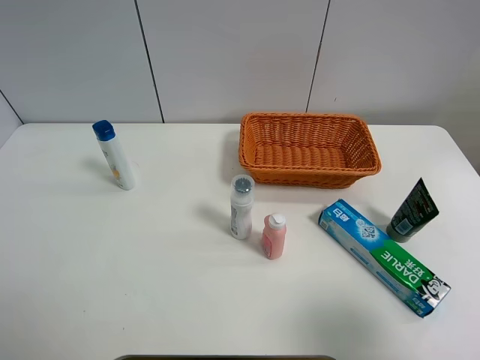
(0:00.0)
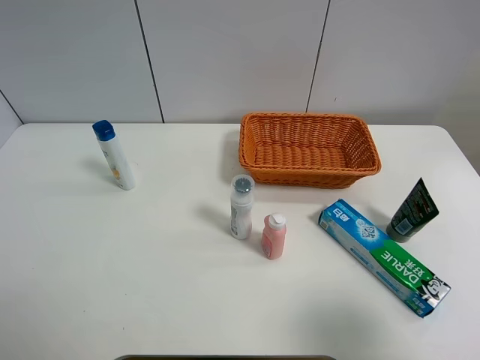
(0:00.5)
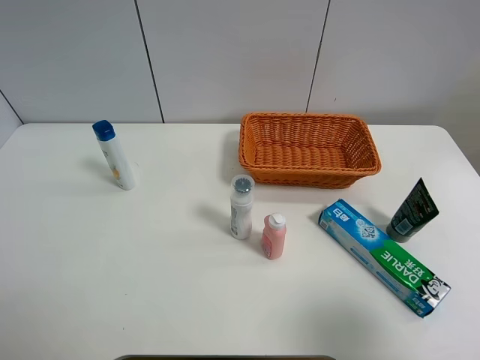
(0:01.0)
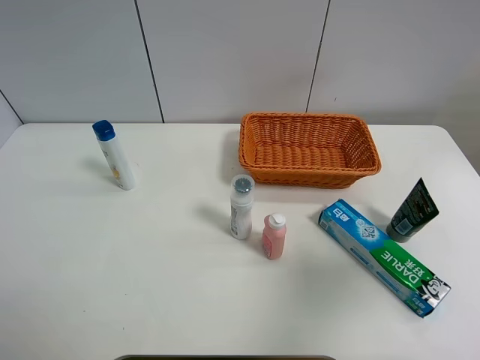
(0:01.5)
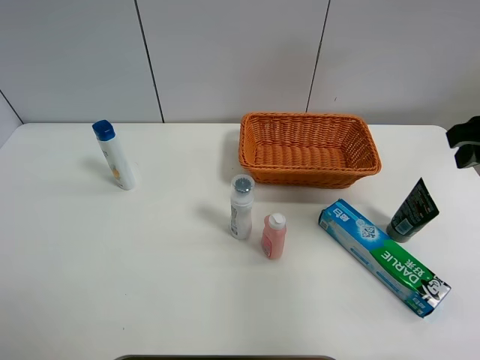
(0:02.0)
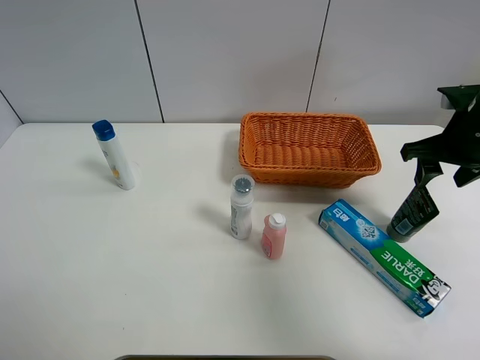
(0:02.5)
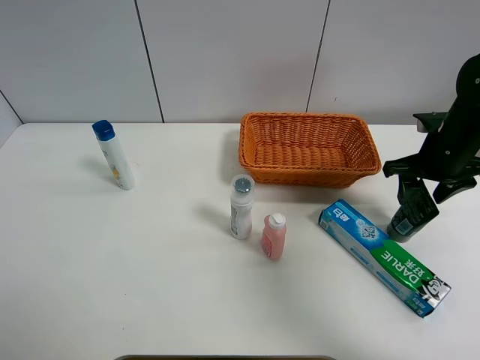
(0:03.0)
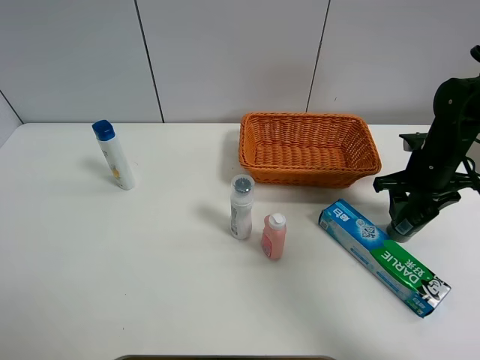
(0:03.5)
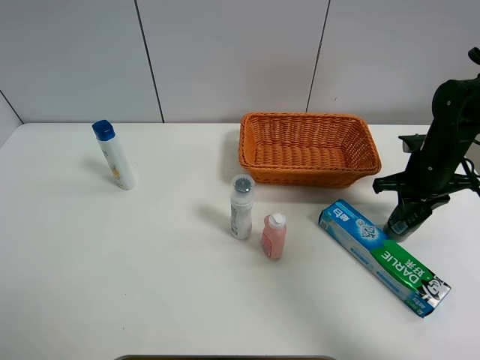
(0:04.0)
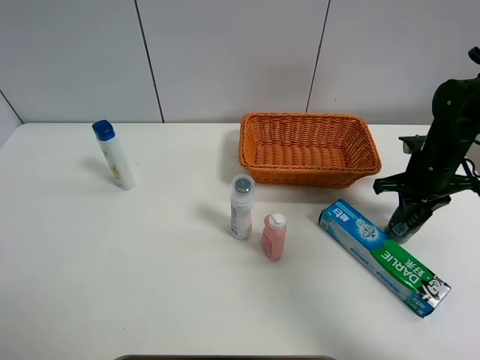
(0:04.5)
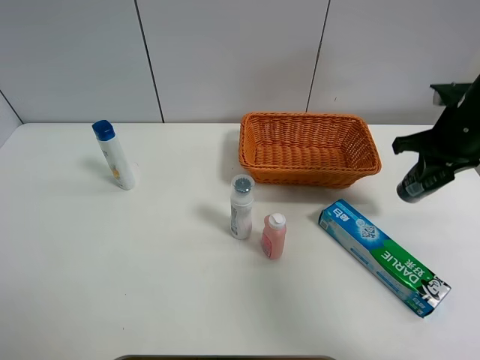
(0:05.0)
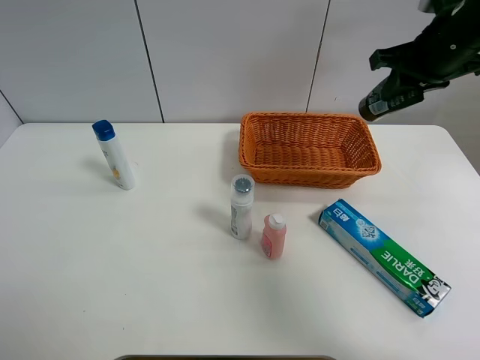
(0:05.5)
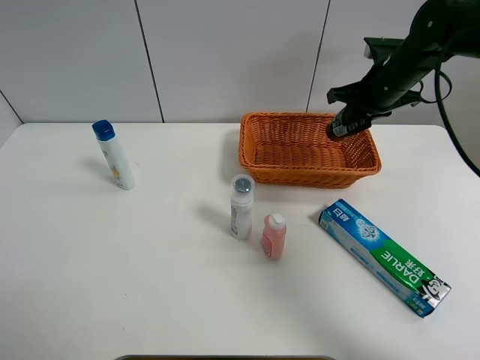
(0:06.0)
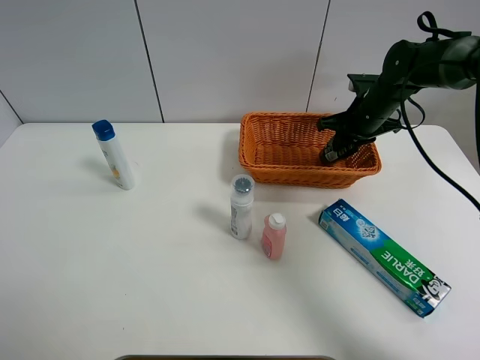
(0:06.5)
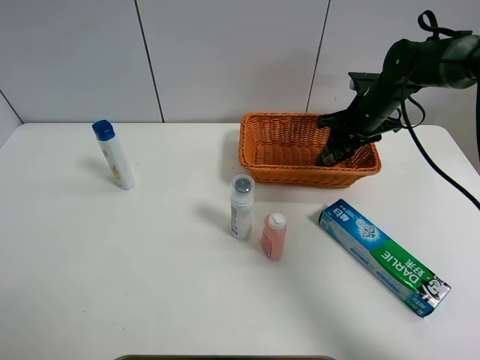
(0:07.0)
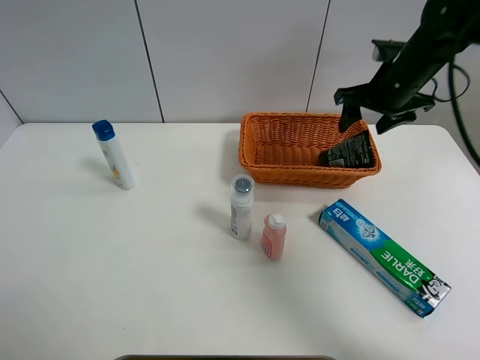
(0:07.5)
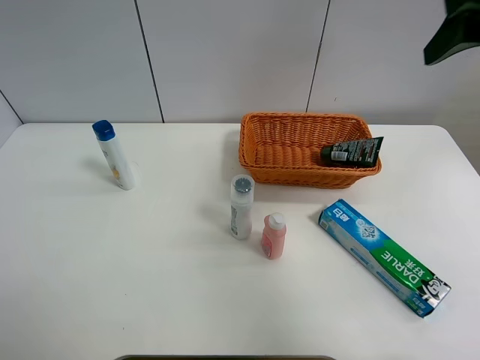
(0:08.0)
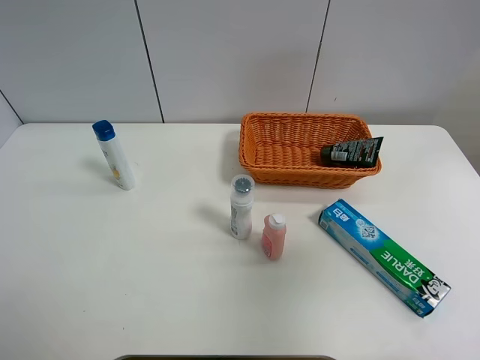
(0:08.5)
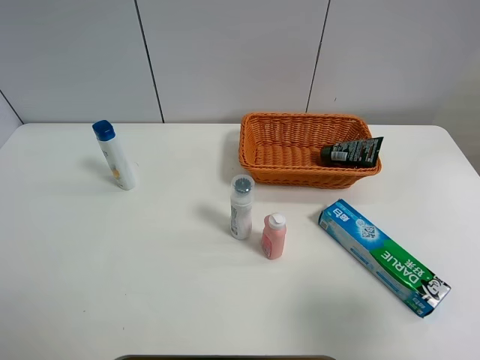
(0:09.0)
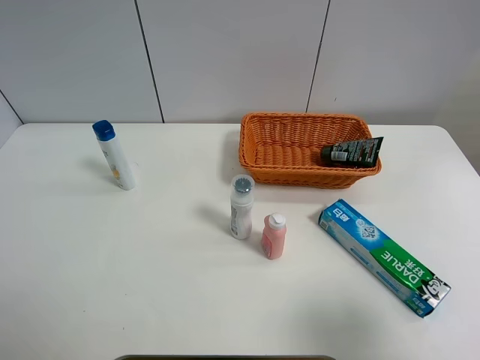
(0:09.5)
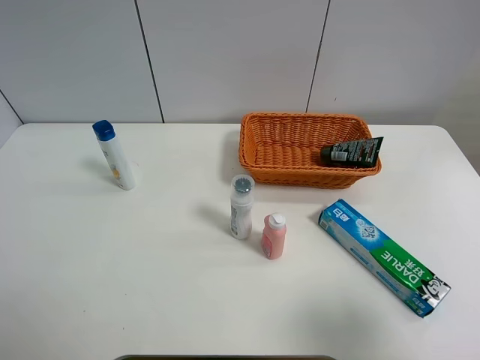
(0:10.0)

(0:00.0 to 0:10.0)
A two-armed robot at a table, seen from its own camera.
Task of the whole recording: Place the object closest to the toothpaste in the basket.
Step, 0:00.0 - 0:04.0: Grasp the soft facial cleanser with right gripper.
Step, 0:04.5 - 0:07.5: Place the soft facial cleanser in the basket with right gripper.
0:00.0 - 0:02.0: The right gripper heads forward, covering roughly 25 cm.
0:02.0 - 0:04.0: The right gripper shifts roughly 20 cm downward and forward, and closes.
0:04.0 - 0:06.0: The right gripper moves forward, upward and to the left, about 15 cm.
0:06.0 - 0:08.0: The right gripper shifts about 25 cm upward and backward, and opens its fingers.
0:08.0 - 0:10.0: The right gripper heads backward and downward, covering some 30 cm.

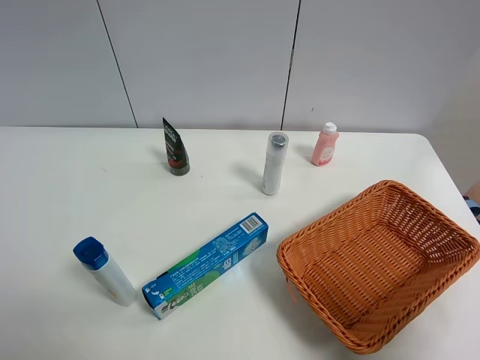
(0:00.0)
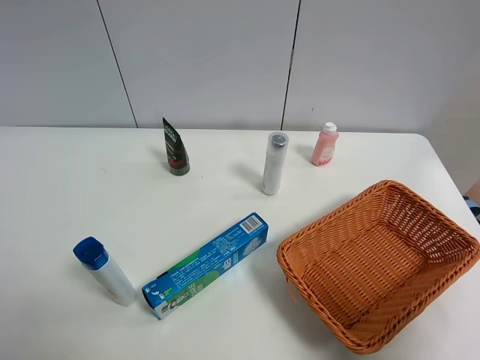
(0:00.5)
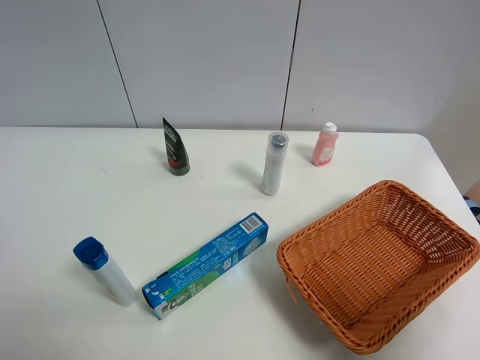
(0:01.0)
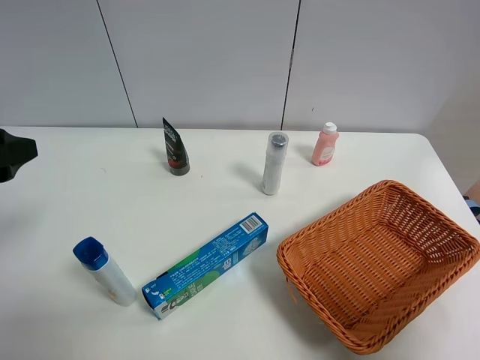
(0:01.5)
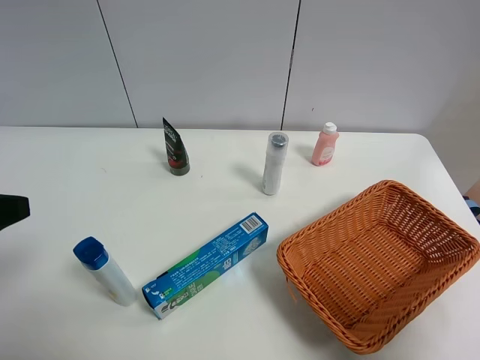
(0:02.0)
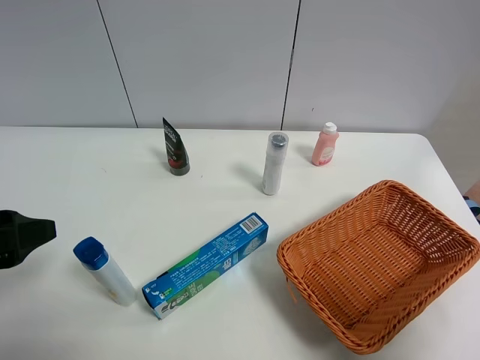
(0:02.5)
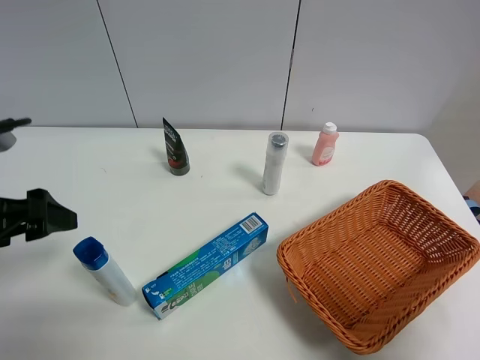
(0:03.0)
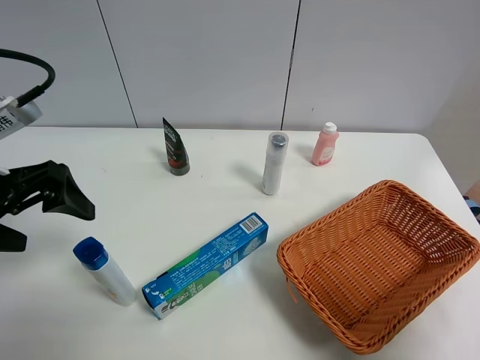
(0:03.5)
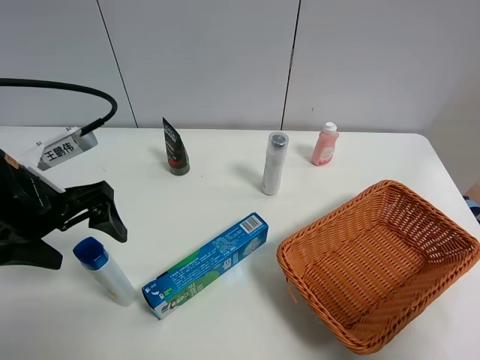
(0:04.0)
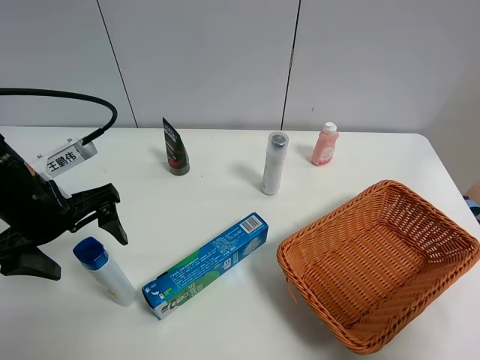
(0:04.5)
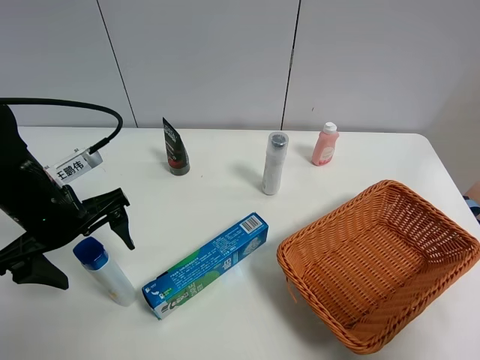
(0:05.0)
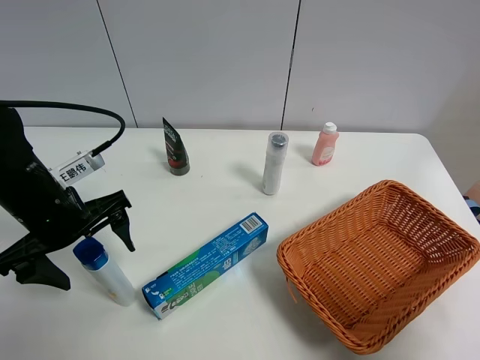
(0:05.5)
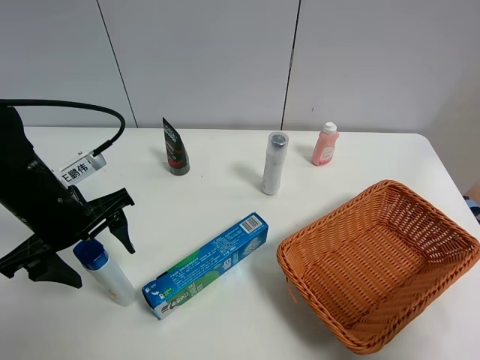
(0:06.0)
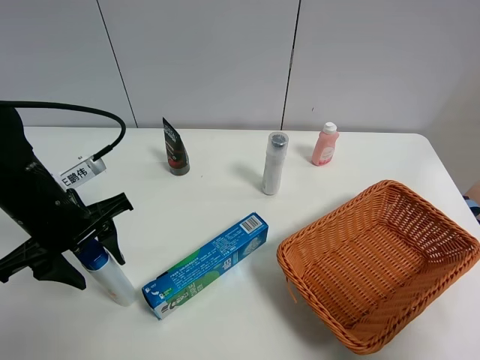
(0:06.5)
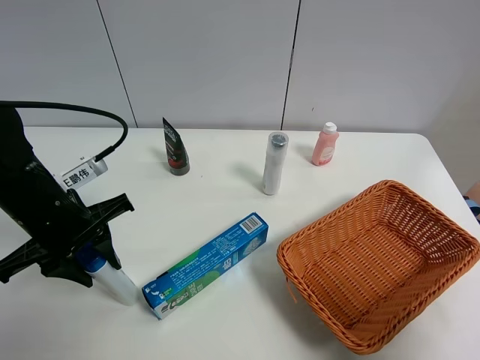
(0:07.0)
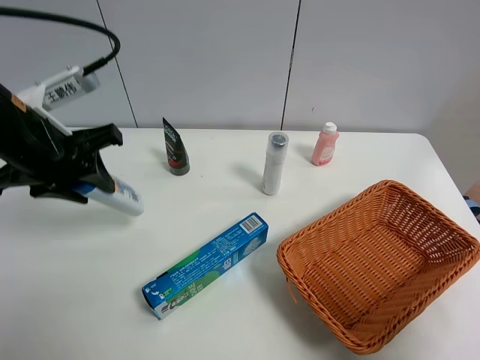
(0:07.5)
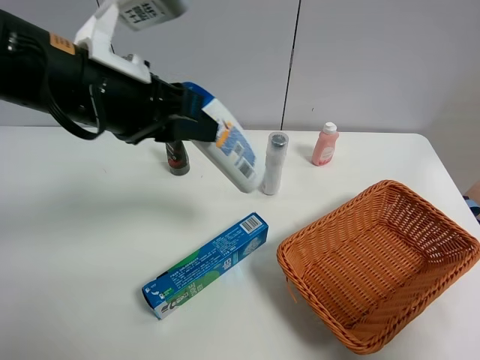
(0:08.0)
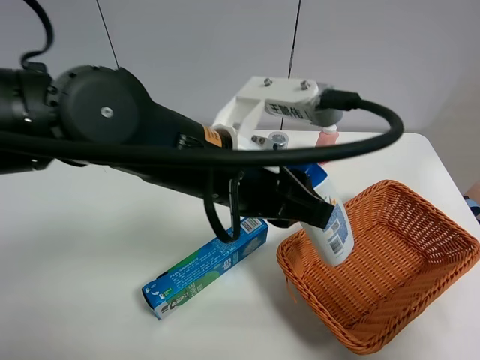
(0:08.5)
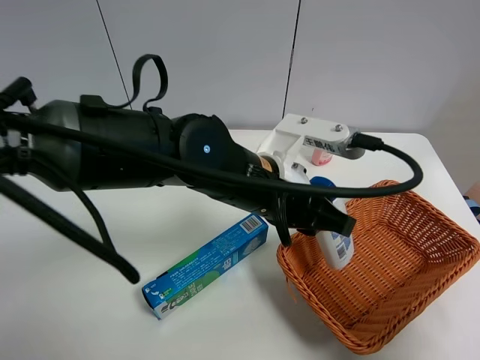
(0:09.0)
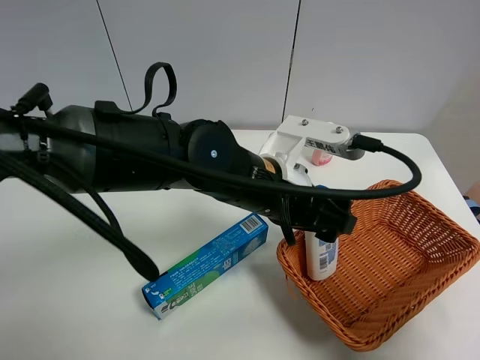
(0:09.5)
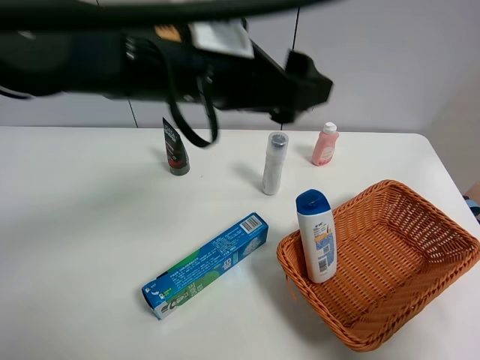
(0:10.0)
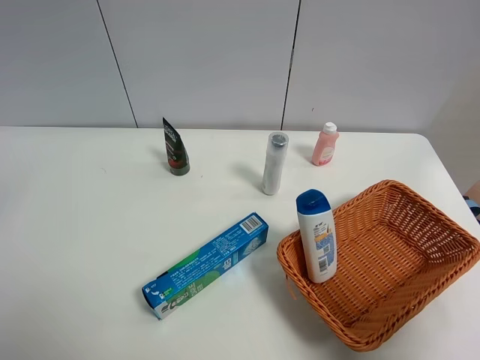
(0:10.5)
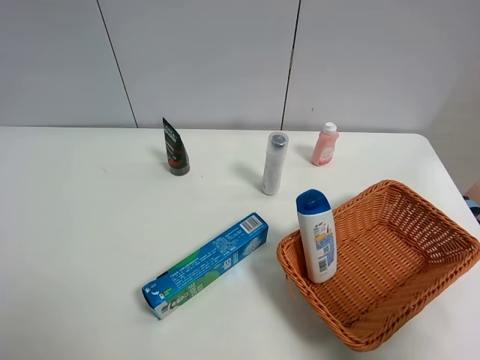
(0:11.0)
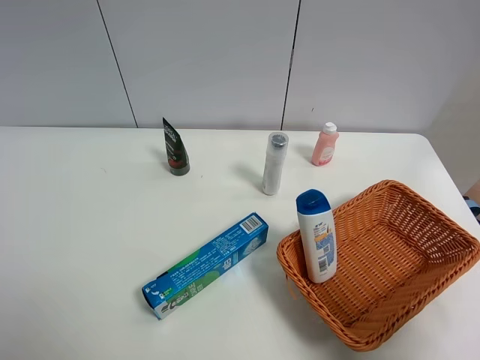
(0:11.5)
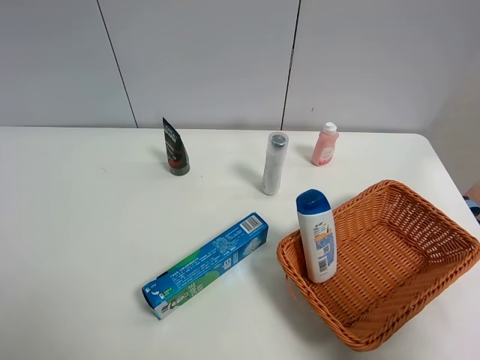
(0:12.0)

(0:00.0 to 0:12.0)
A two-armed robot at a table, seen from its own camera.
Task of the whole recording: Place the object closest to the toothpaste in the basket.
Step, 0:00.0 - 0:06.5: Grasp the shampoo with left gripper.
Step, 0:07.0 - 0:09.5: Place the shampoo in the basket with left gripper.
0:00.0 - 0:02.0: The left gripper heads forward, covering approximately 10 cm.
0:02.0 - 0:04.0: The left gripper moves forward, downward and to the right, approximately 15 cm.
0:06.0 - 0:08.0: The left gripper is displaced upward and to the right by some 20 cm, and closes its fingers.
0:08.0 - 0:10.0: The left gripper is displaced to the right by about 5 cm, reaches approximately 10 cm downward, then returns, and opens up.
0:10.0 - 0:12.0: The left gripper heads to the left and backward, covering approximately 35 cm.

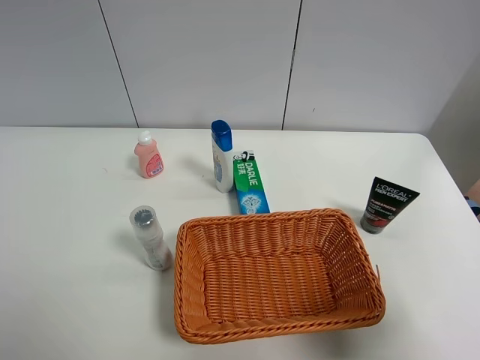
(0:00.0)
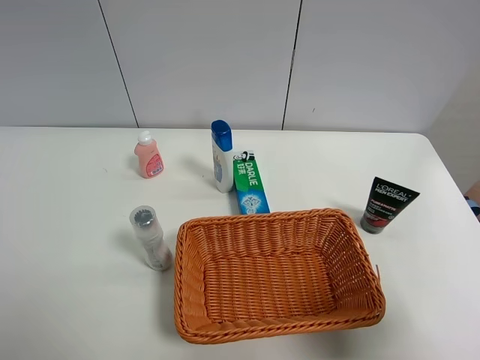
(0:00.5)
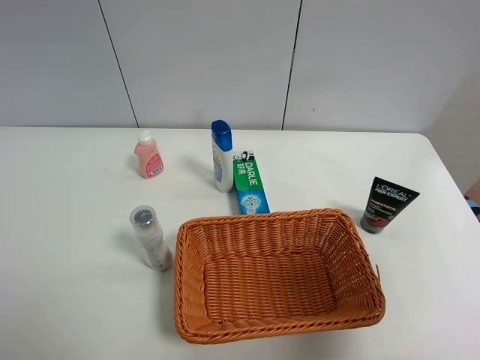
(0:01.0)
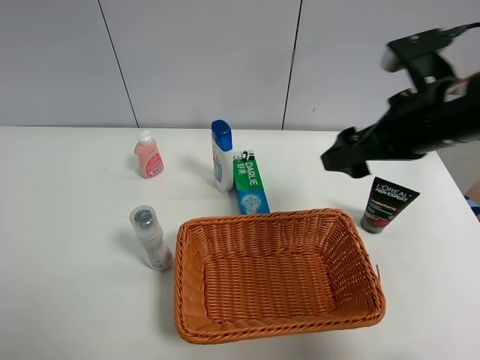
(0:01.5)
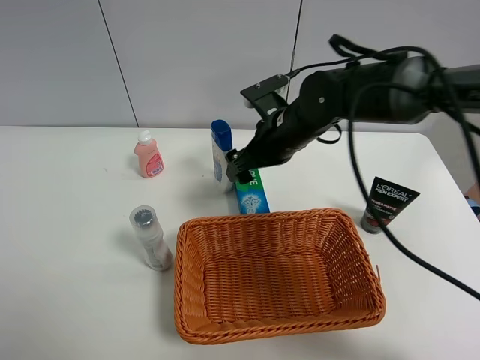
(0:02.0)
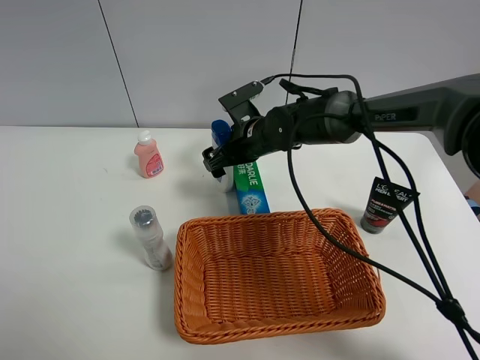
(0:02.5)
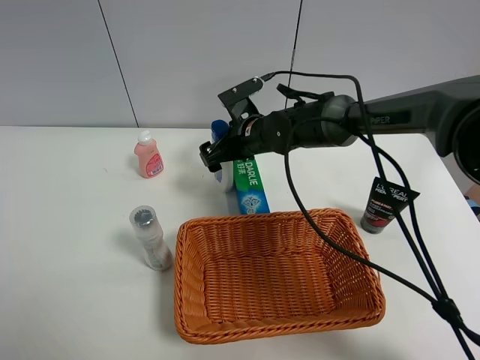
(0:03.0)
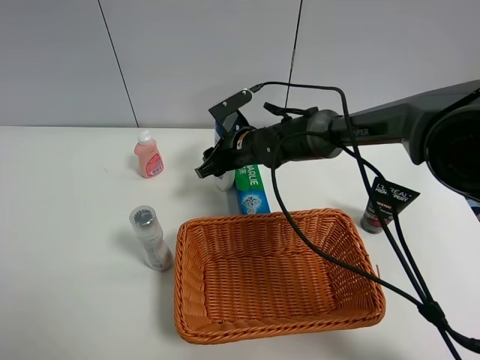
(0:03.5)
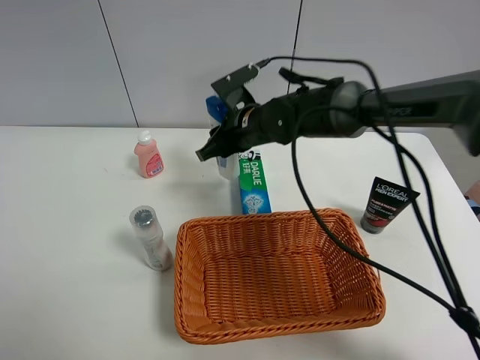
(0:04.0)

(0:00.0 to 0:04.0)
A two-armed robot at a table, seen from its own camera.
Task of the whole recording: Place the object closest to the toothpaste in the basket.
Step, 0:00.0 - 0:03.5: Grasp the shampoo with right gripper.
0:00.0 - 0:02.0: The right gripper travels forward and to the left by approximately 40 cm.
0:02.0 - 0:04.0: The right gripper reaches approximately 5 cm downward, then returns, and closes.
